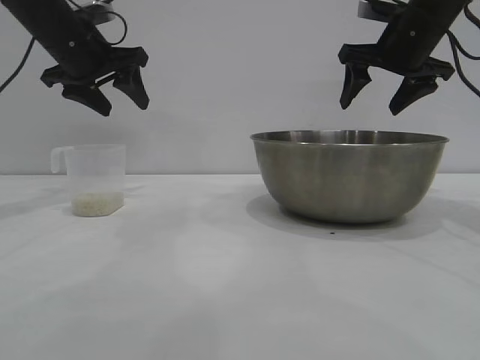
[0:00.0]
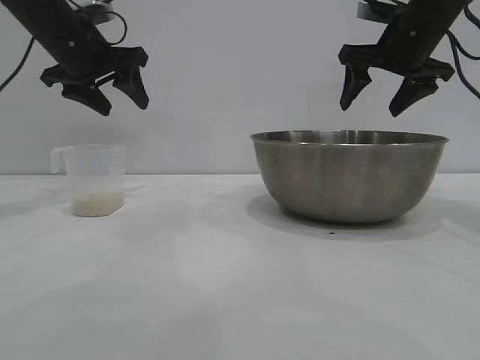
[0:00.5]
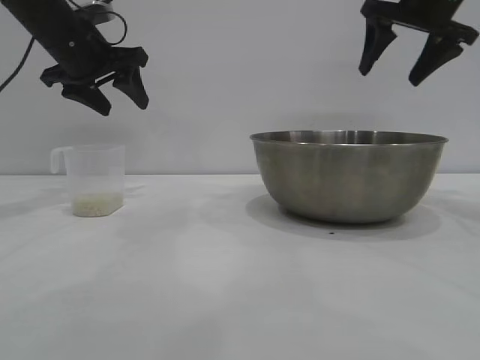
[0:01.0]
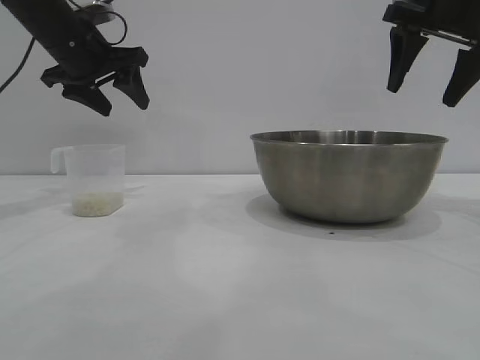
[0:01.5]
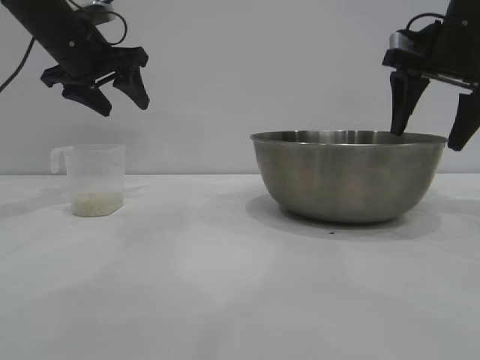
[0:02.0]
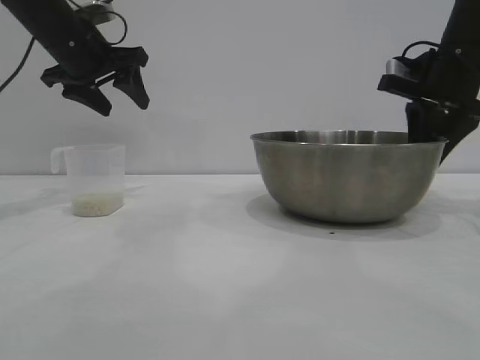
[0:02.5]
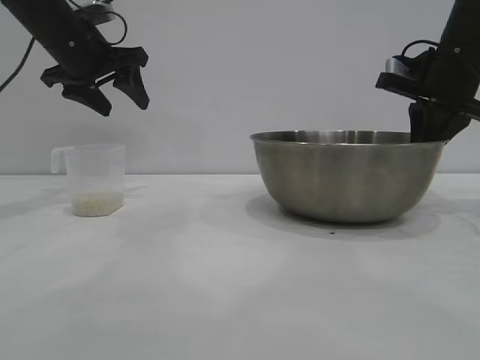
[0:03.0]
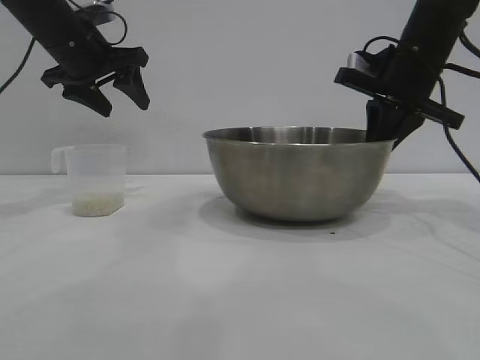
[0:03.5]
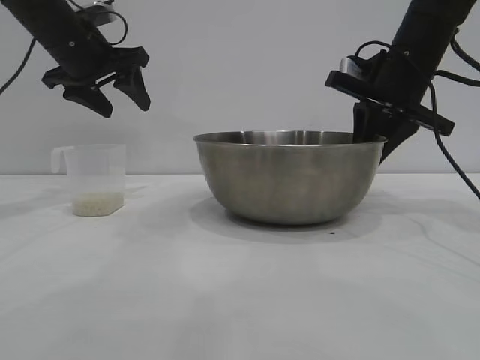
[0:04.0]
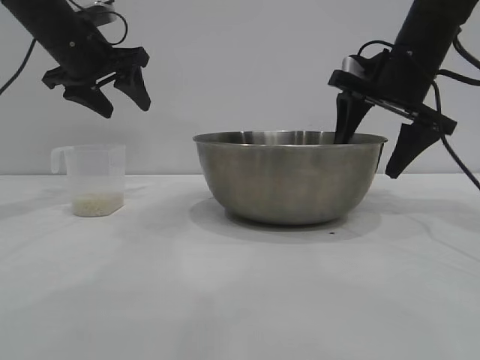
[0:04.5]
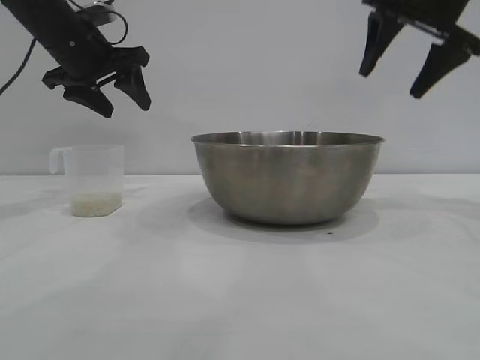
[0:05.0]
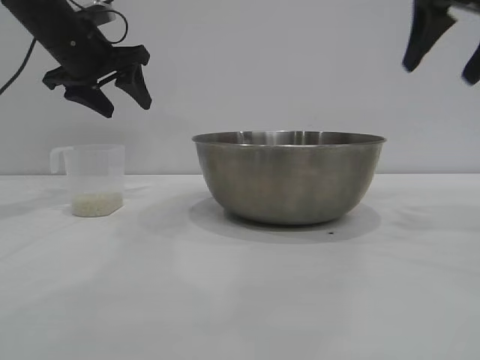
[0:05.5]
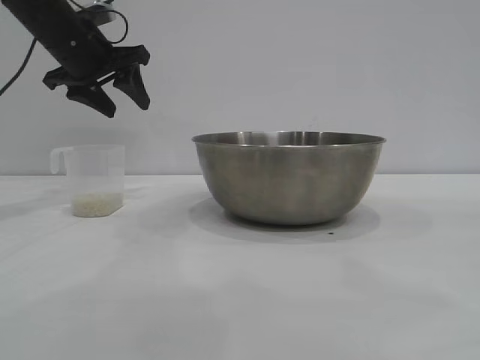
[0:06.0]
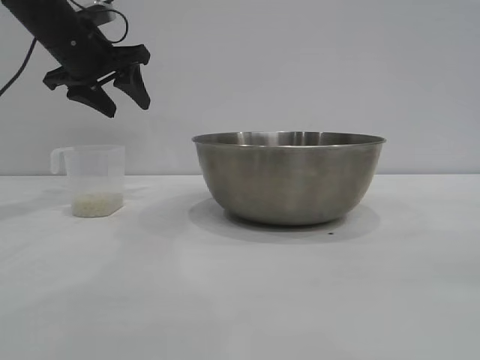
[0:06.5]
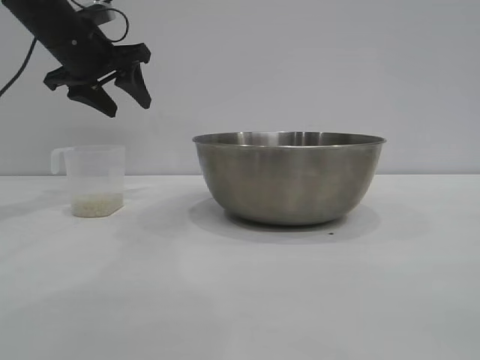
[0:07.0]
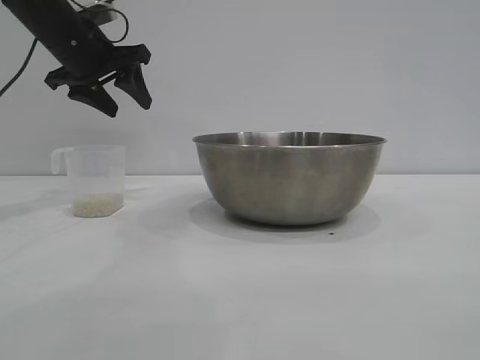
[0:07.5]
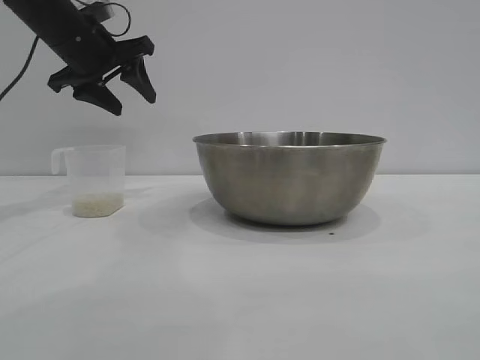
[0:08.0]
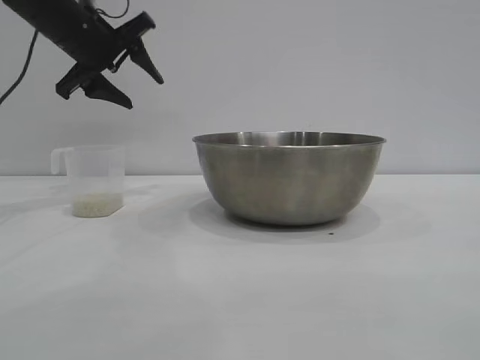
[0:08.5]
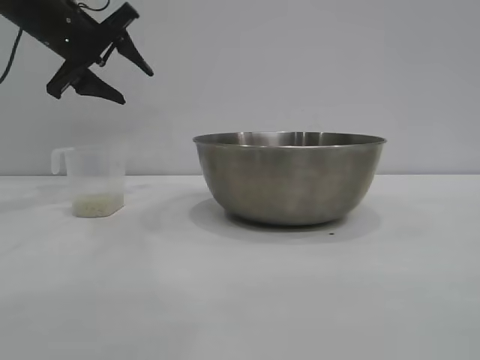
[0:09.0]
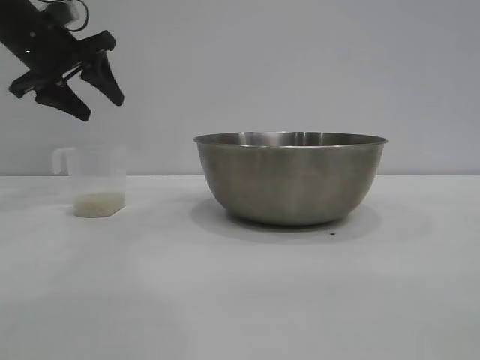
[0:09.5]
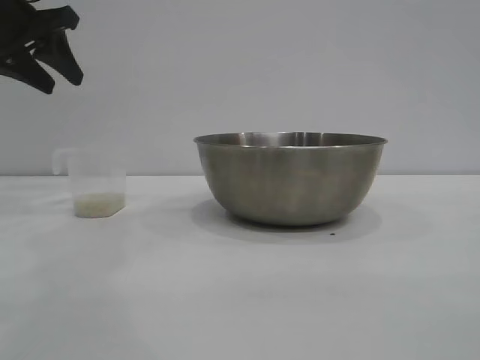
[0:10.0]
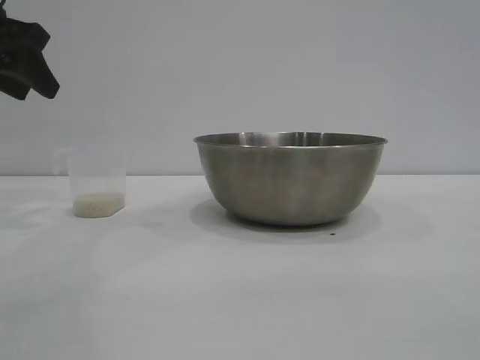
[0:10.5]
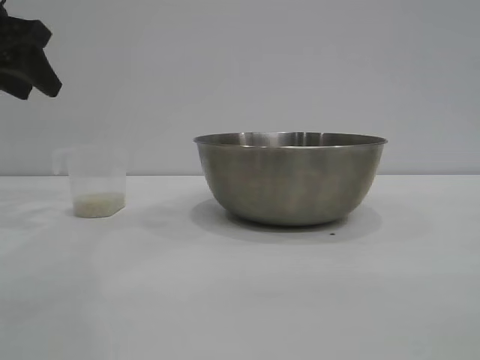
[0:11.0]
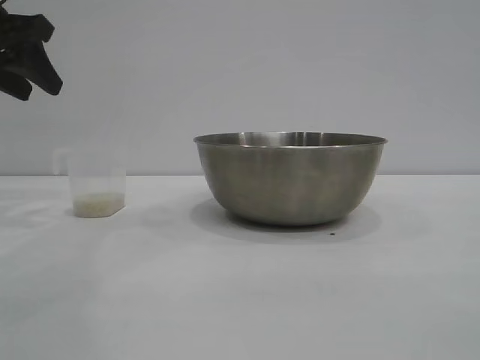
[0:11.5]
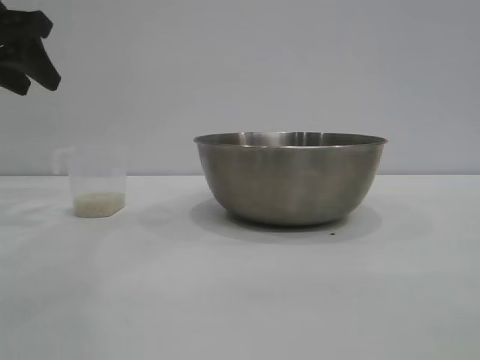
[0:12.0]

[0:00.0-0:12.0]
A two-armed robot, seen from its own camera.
Task of the whole recording: the right gripper grasp the rice container and place it in the center of the table, the left gripper grasp the rice scoop and pour the rice into the rice container.
Step, 0:00.0 to 0:04.5: Move the bowl to the center of view with the right gripper.

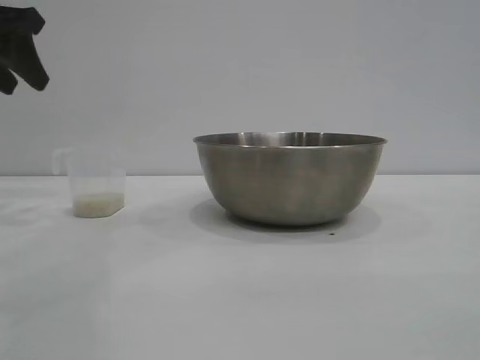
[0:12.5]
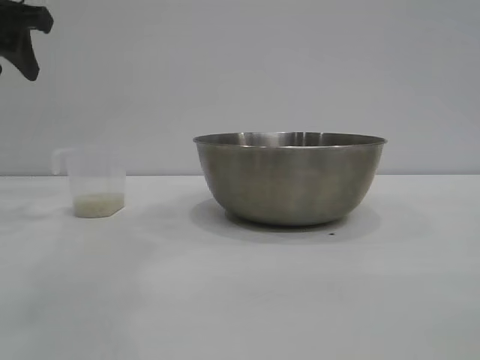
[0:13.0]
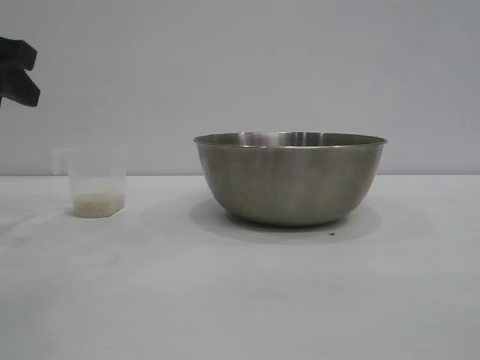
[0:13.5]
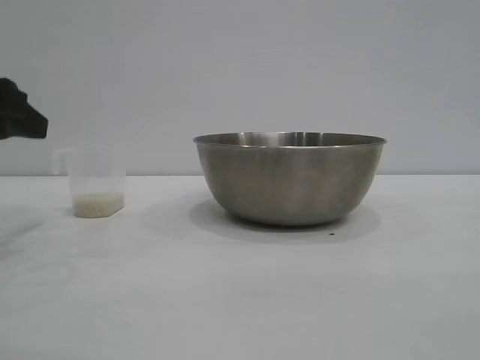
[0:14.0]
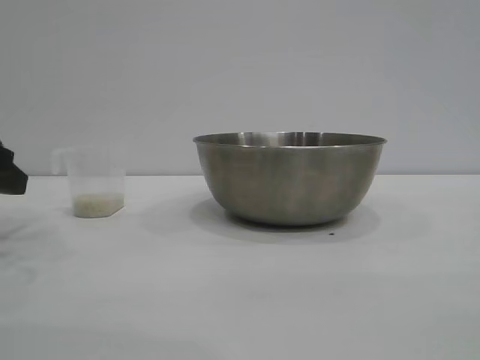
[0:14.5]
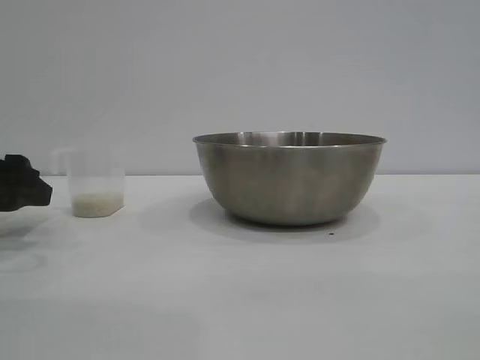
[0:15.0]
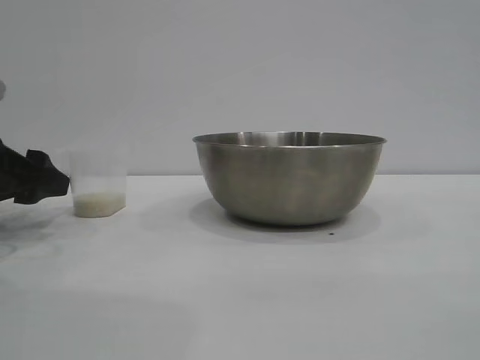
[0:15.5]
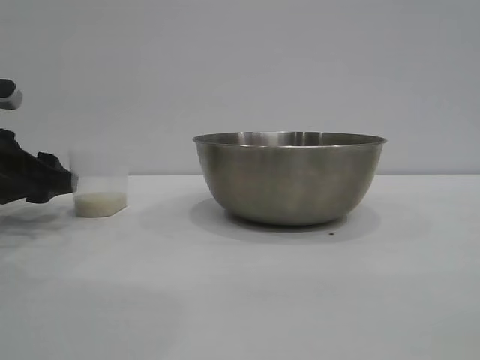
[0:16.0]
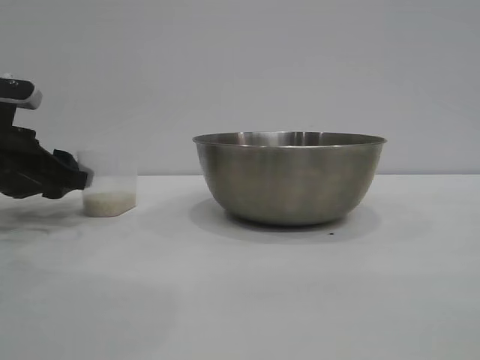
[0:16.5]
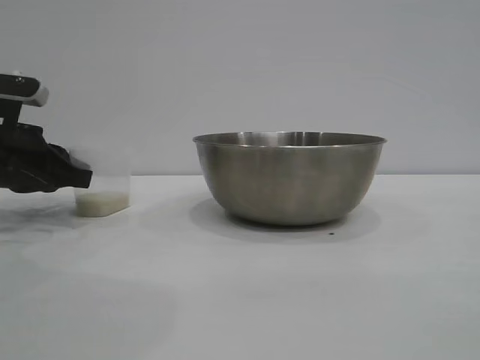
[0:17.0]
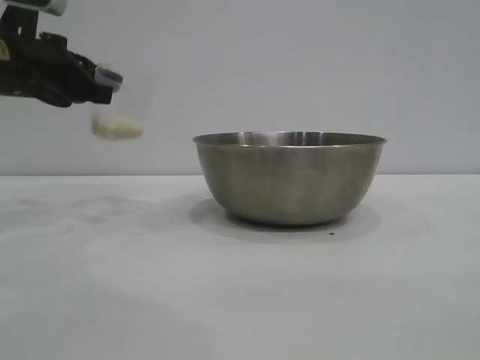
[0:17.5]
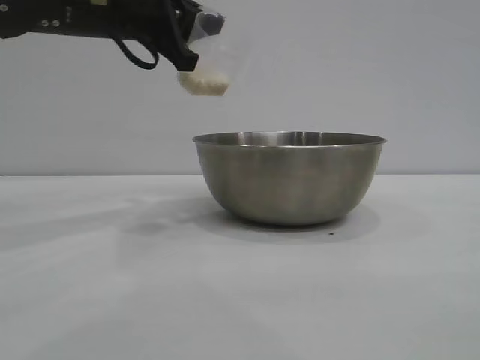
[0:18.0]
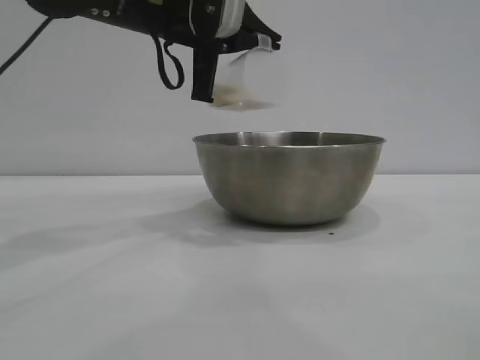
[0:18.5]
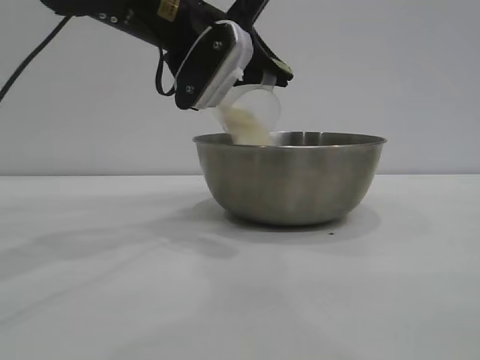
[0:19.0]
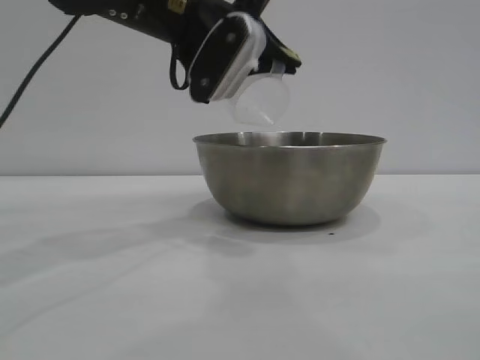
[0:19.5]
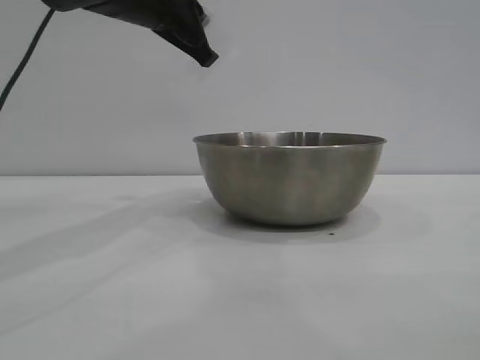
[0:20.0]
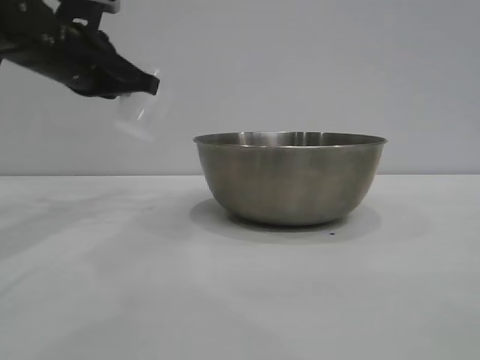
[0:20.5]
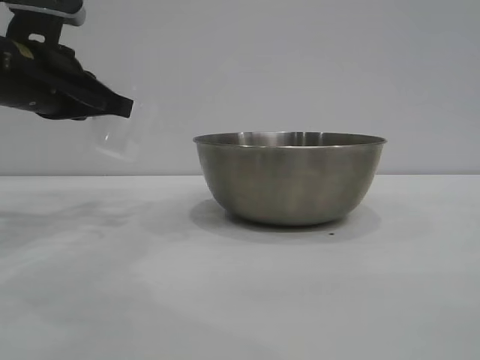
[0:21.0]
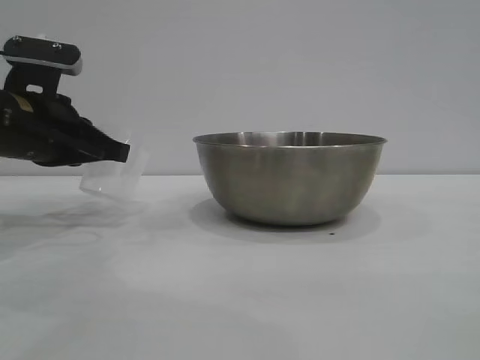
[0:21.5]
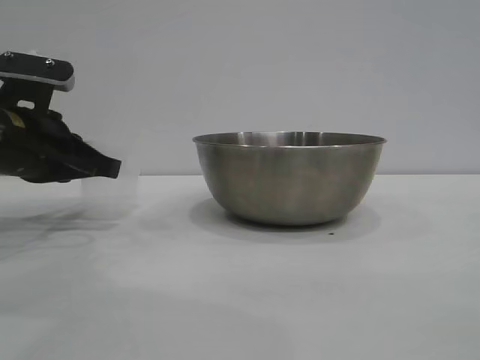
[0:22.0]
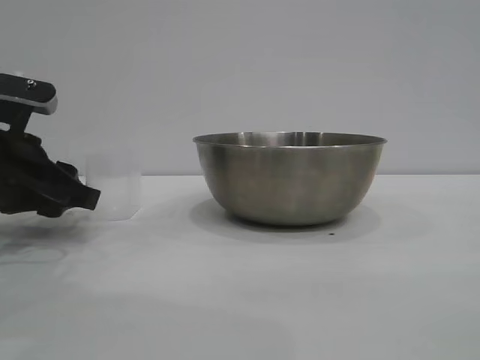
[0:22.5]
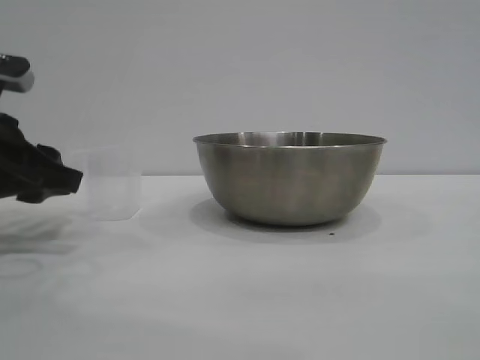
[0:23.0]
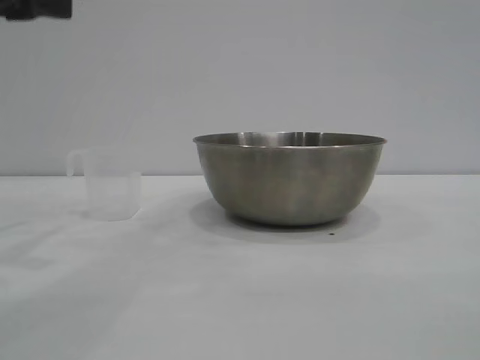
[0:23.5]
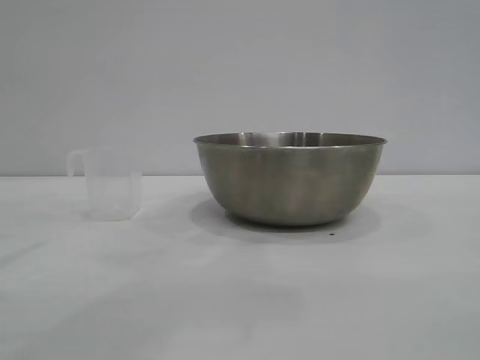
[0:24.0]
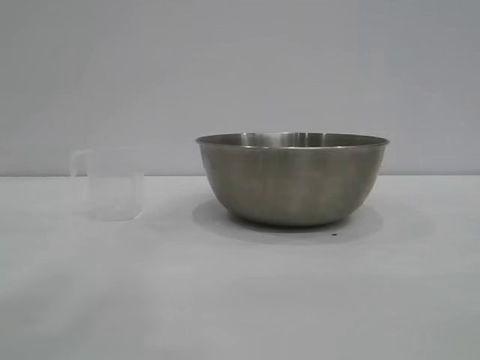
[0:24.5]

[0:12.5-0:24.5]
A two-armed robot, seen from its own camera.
Task of the whole recording: the right gripper grasp the rice container and place it in the center of the table, the left gripper grasp the rice scoop and pour the rice into the rice container.
Step, 0:12.5 to 0:17.0: Pick up the cup with rice in it with the left gripper.
Step, 0:17.5 to 0:19.0: Pour the rice from the cup into the bowl with the left gripper.
Step, 0:20.0 to 0:23.0: Place the cup on the table with the left gripper.

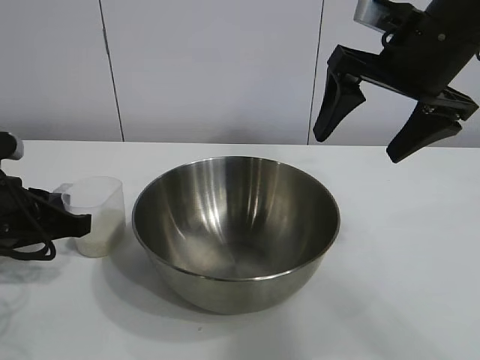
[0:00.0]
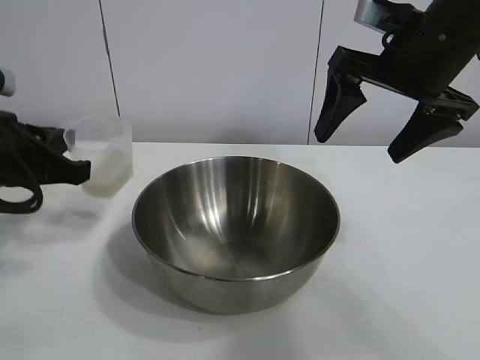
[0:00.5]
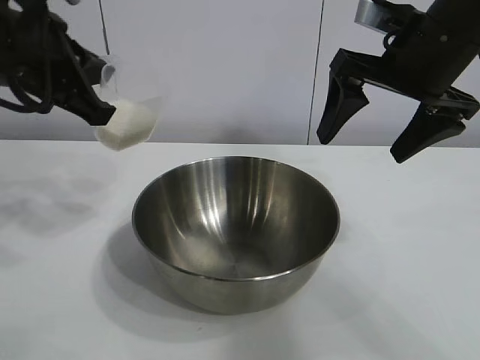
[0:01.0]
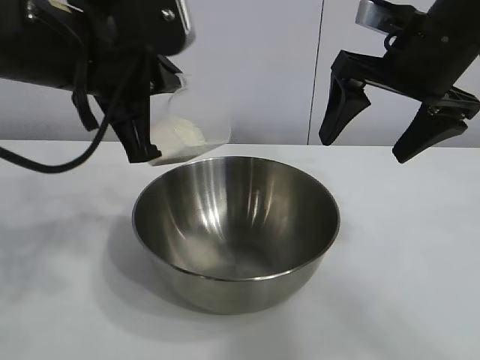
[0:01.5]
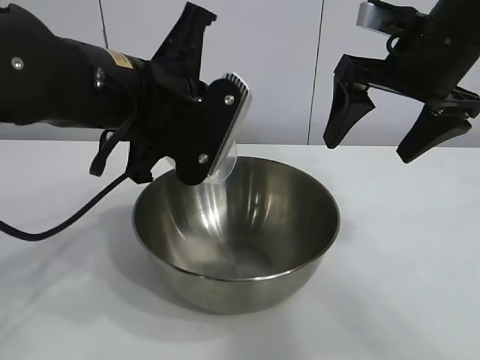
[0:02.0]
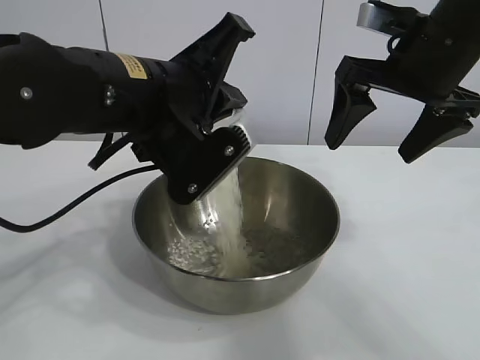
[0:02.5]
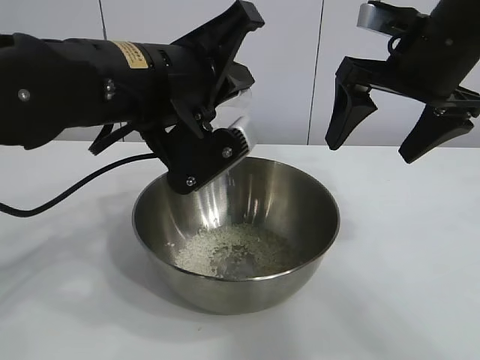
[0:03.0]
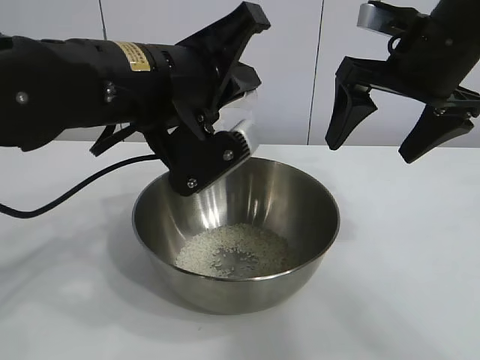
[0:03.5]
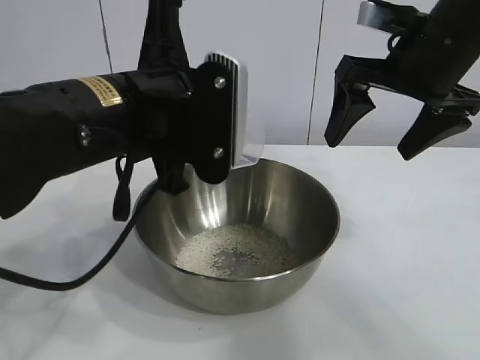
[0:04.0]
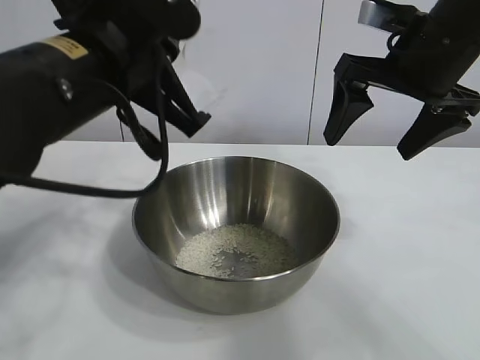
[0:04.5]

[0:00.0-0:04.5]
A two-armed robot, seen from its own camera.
Task of the whole recording: the right gripper grasp the rice container and place it in the center of the table, the left gripper grasp the rice scoop and pour the rice into the rice container.
Step, 0:00.5 to 0:03.0: Pour the rice from the cup into the bowl with the left gripper.
